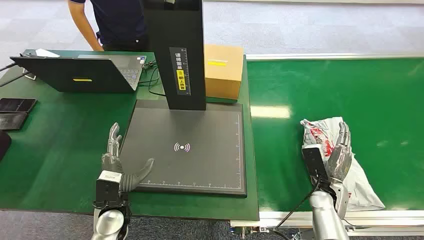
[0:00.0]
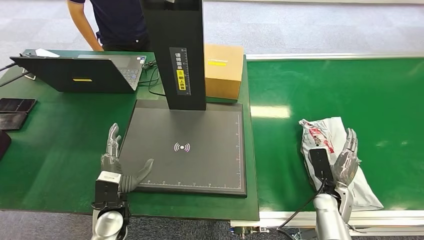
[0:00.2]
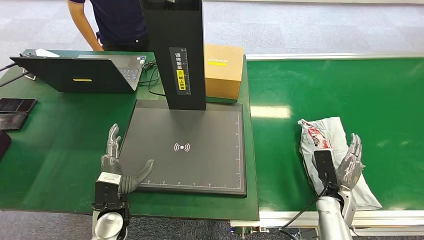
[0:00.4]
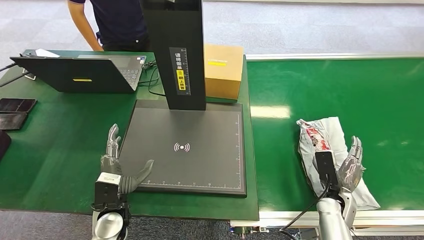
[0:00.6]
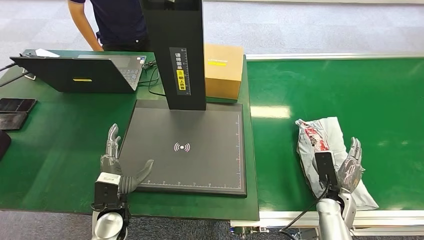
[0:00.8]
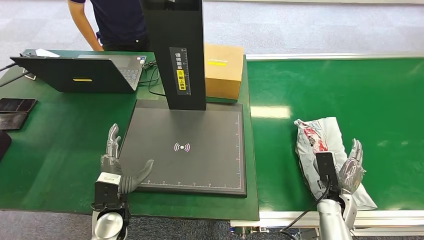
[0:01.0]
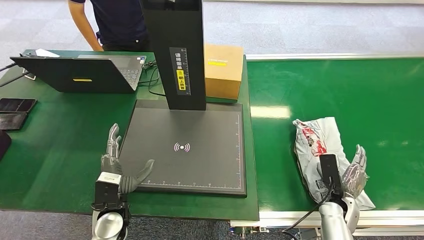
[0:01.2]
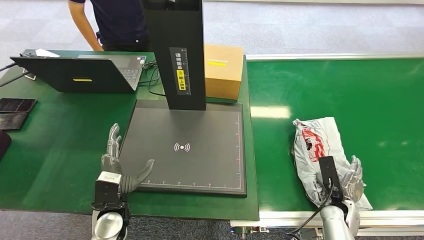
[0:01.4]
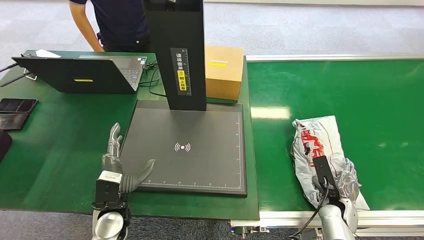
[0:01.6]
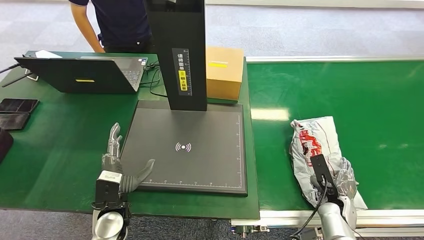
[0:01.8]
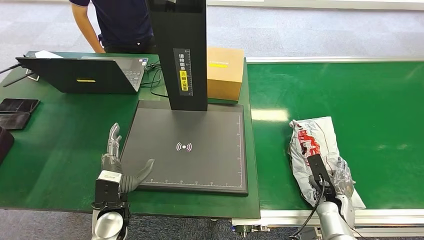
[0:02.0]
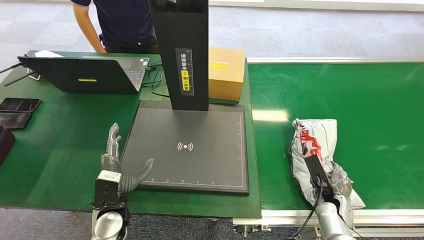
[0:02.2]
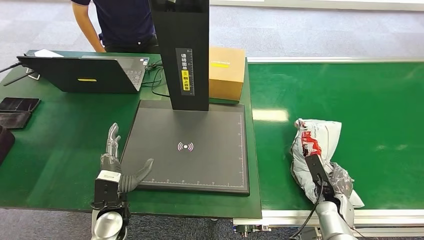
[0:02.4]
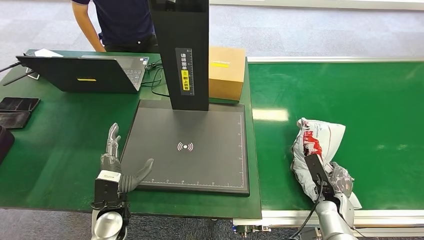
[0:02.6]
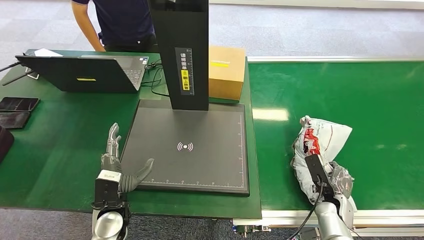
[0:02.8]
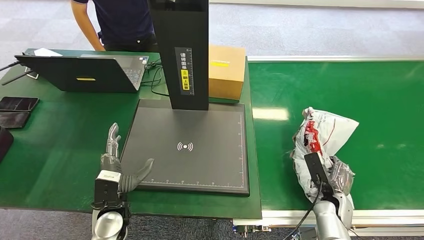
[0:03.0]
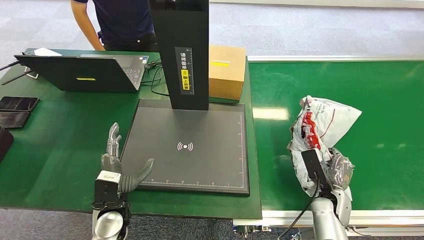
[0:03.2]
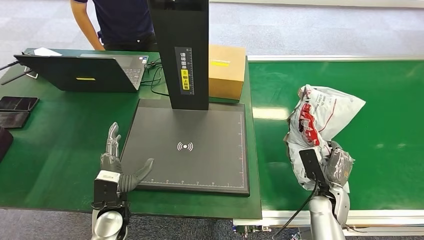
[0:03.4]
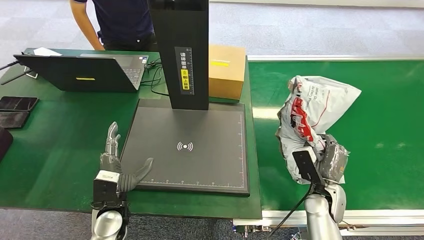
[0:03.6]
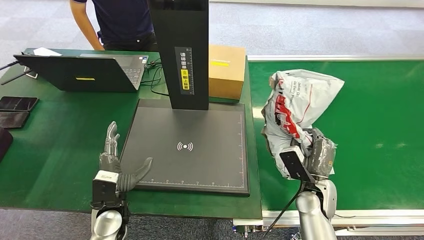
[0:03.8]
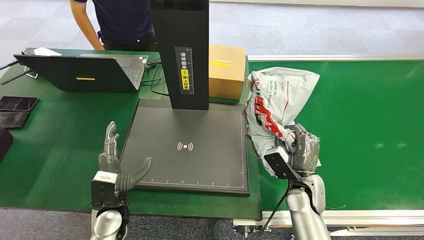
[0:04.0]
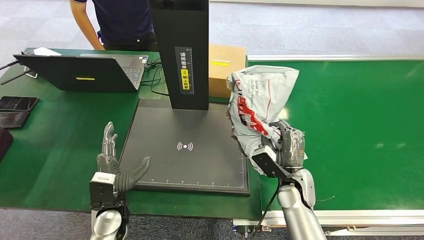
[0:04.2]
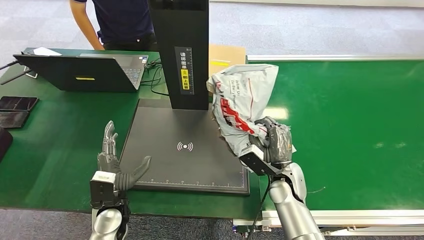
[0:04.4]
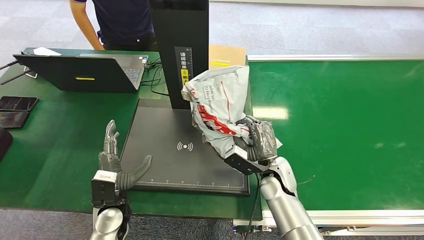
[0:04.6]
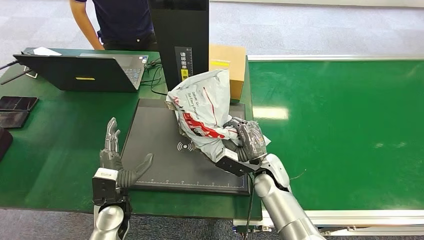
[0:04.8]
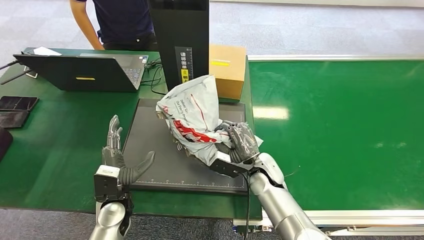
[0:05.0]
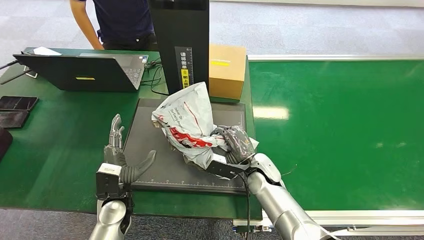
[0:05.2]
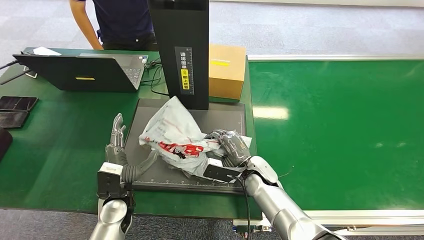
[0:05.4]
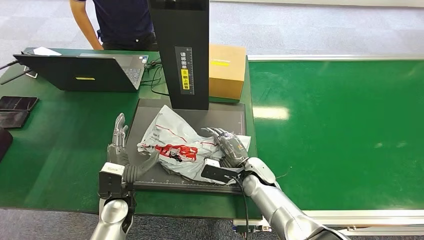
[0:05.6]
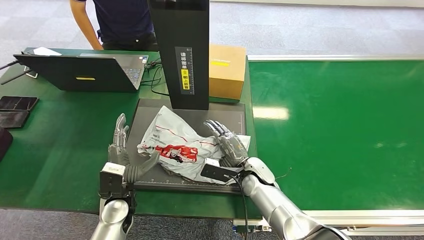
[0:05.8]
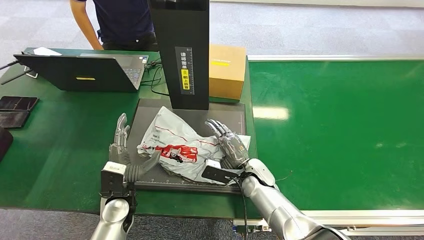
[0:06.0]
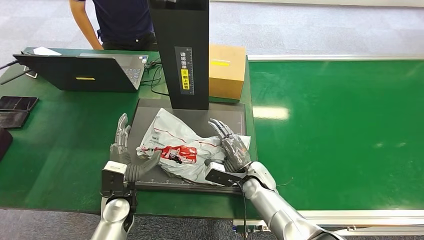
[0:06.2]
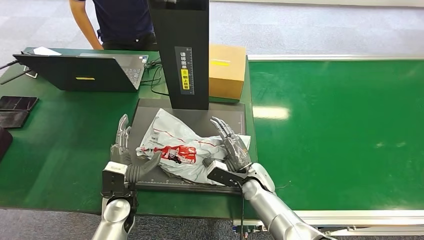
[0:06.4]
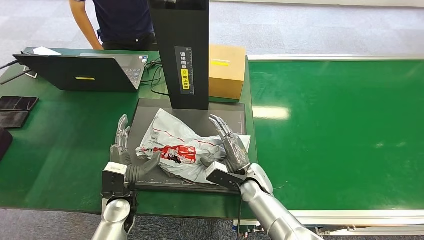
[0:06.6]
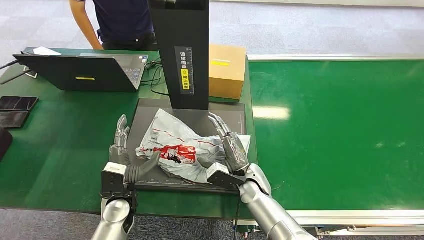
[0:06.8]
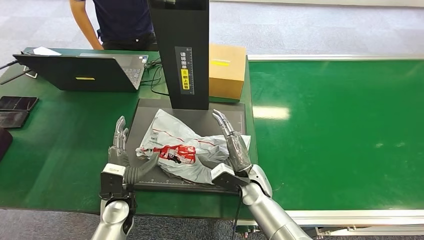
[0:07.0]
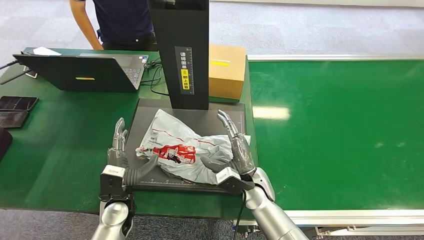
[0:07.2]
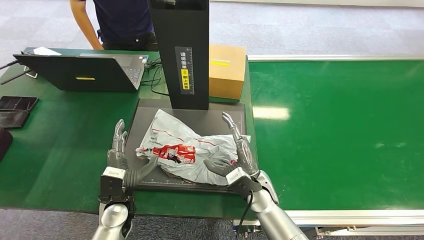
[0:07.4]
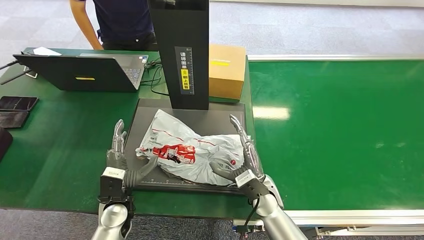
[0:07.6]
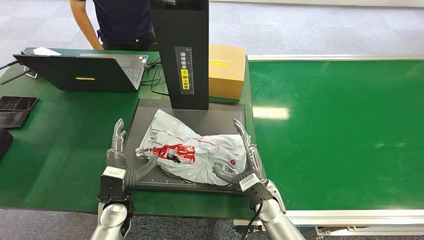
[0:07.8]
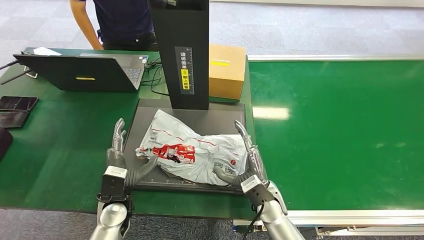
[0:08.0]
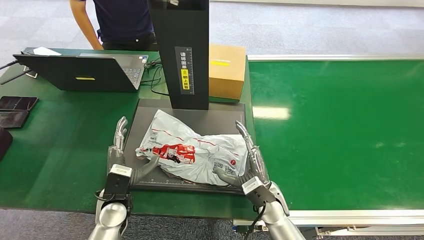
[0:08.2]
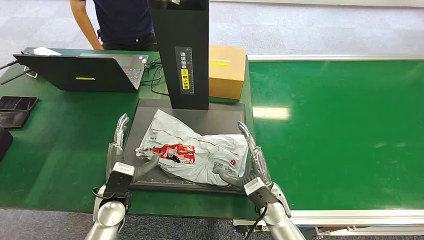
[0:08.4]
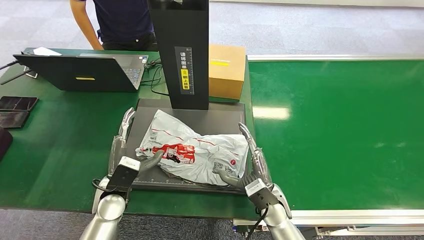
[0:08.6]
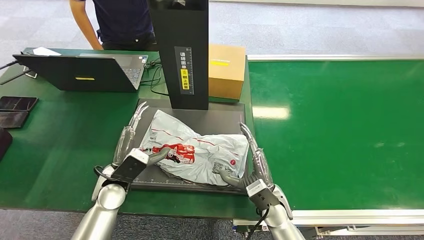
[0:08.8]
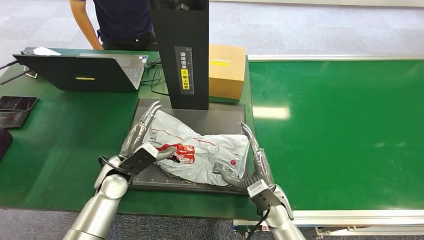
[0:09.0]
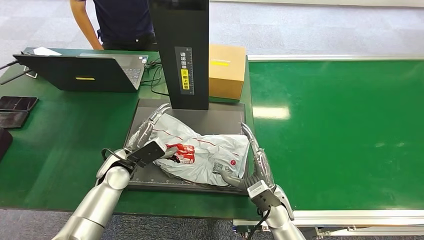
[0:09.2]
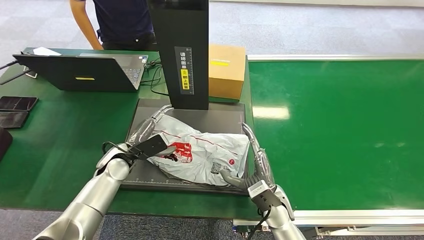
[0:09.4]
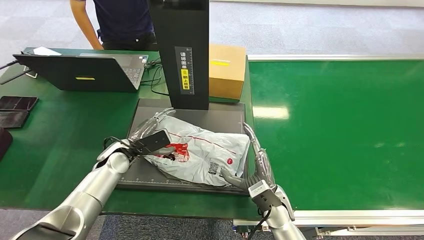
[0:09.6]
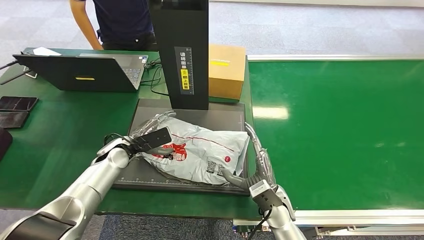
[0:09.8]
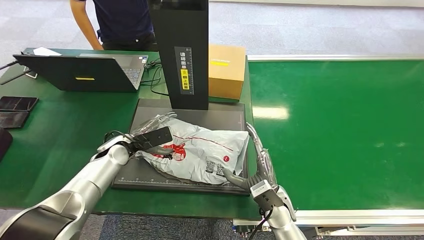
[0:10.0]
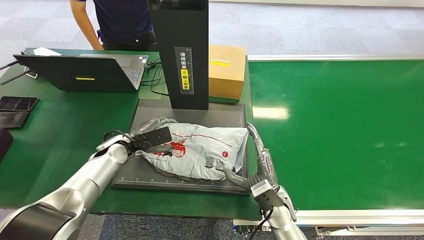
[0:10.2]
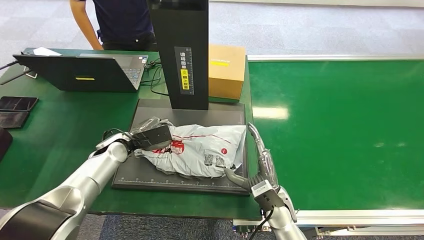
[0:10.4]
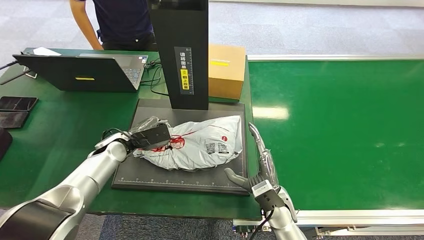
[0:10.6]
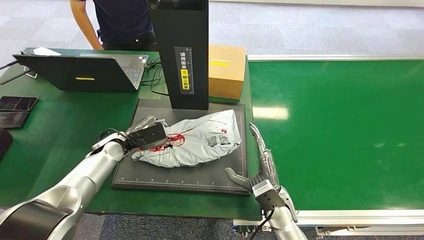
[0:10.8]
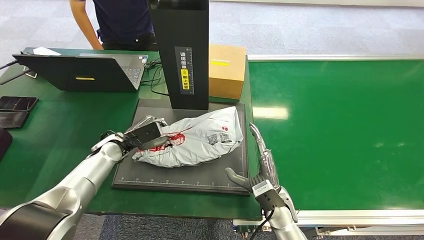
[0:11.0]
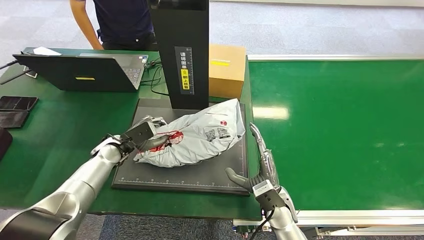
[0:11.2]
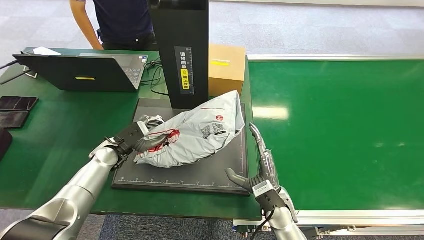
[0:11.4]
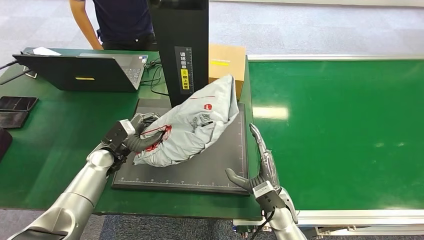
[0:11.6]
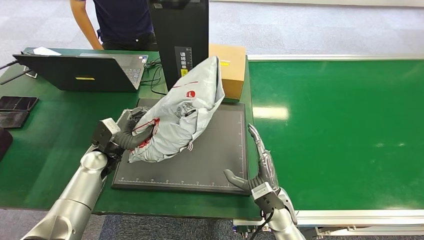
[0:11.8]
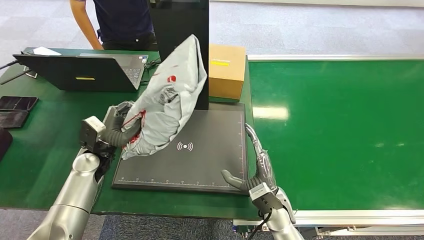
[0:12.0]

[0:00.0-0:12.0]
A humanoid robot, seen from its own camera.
Task of the whole recording: Weigh the package on the weighing device and place it in the left basket.
Step, 0:00.0 to 0:03.4: Pick up the package from the conveyor belt.
Step, 0:03.6 to 0:07.8: Place the package onto the inbound machine.
Step, 0:08.0 to 0:11.6: Pick up the package from the inbound machine.
0:01.6 to 0:03.0: There are only small adjustments of the hands.
0:04.4 to 0:06.0: The right hand travels to the left by some 10 cm.
0:06.0 to 0:07.6: The right hand goes roughly 5 cm backward.
0:07.6 to 0:09.0: The left hand moves forward, approximately 5 cm.
0:09.0 to 0:10.4: The left hand shifts about 10 cm forward.
0:10.4 to 0:12.0: The left hand shifts by approximately 5 cm.

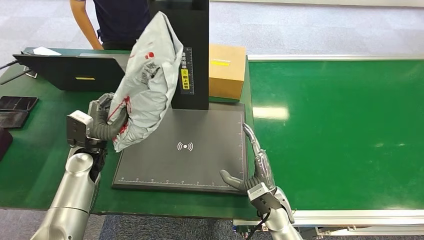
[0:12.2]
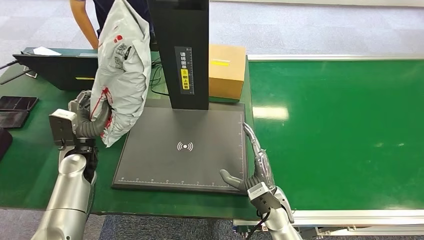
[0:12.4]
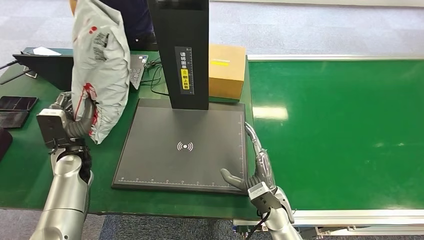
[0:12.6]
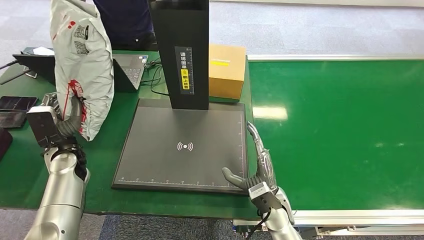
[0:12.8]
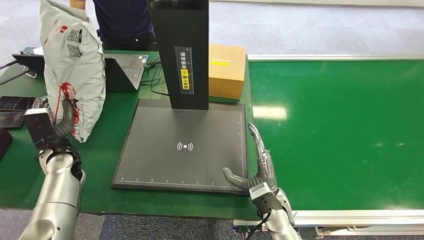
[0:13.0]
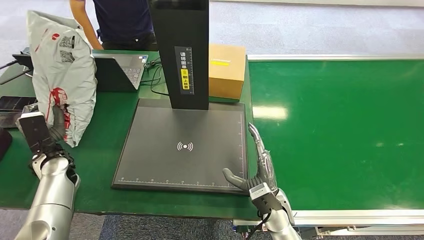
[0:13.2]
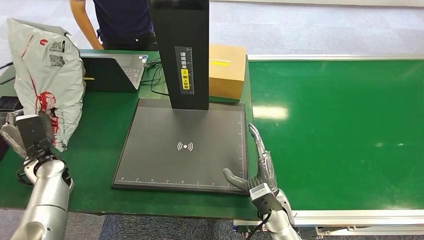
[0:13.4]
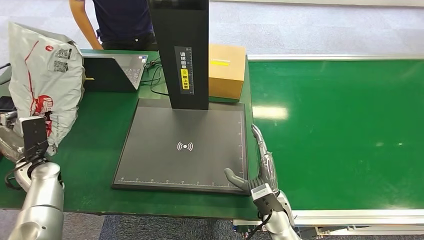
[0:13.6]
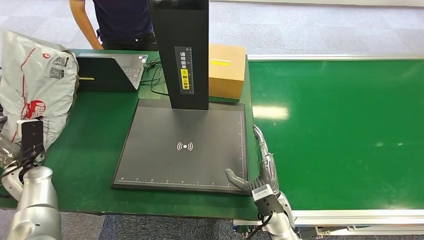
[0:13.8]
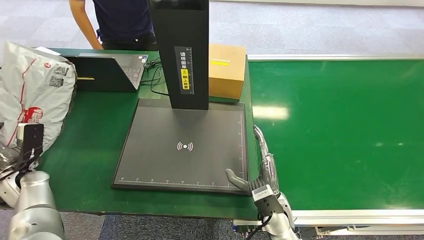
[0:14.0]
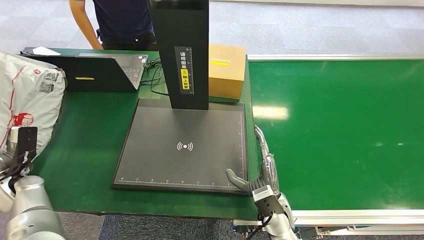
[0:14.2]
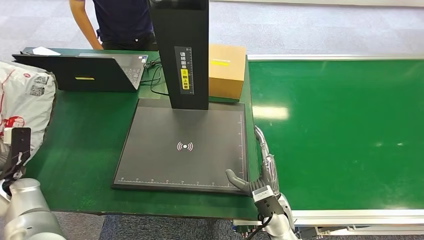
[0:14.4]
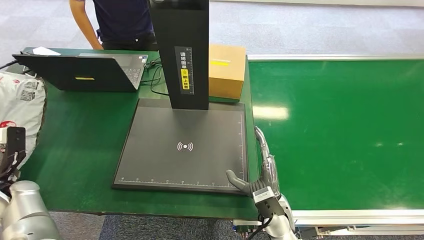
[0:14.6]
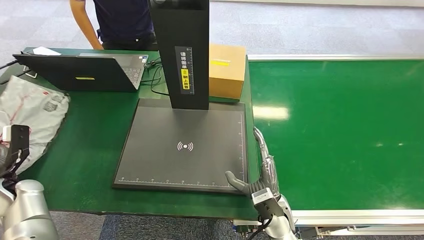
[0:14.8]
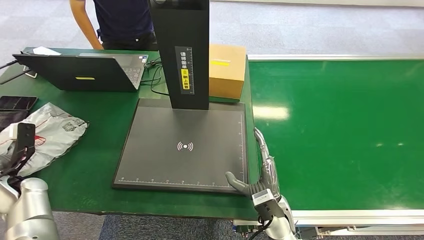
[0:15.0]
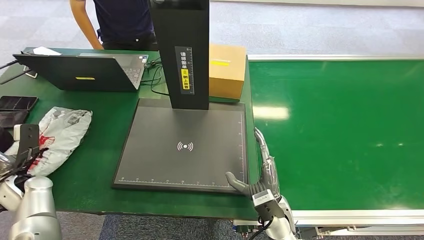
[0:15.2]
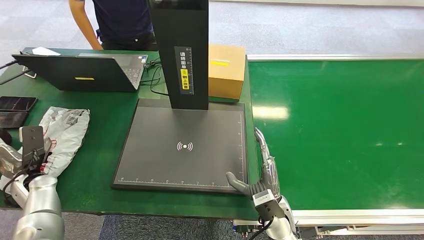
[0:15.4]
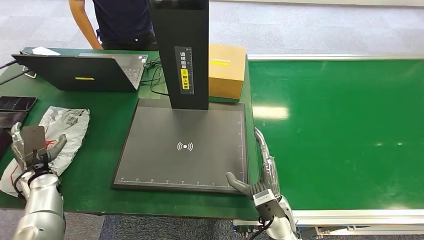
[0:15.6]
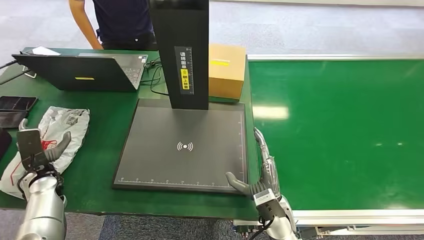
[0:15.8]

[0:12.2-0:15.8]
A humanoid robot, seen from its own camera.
Task of the whole recording: Weigh the package on the weighing device and place it in the left basket.
Step, 0:12.2 to 0:15.6: Place the package into the parcel locker.

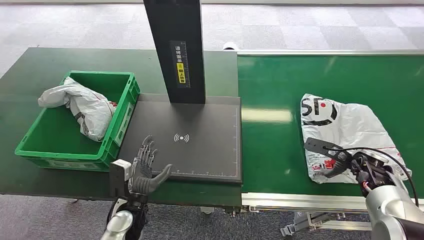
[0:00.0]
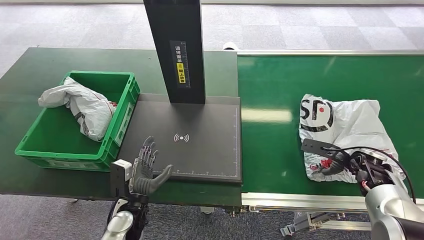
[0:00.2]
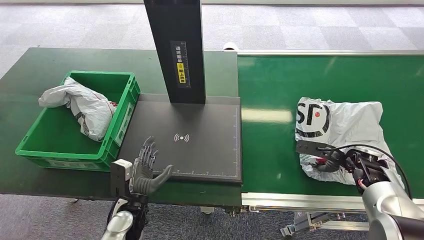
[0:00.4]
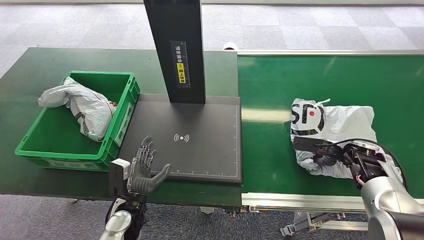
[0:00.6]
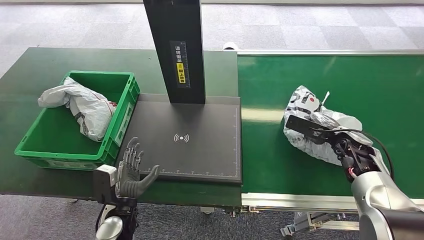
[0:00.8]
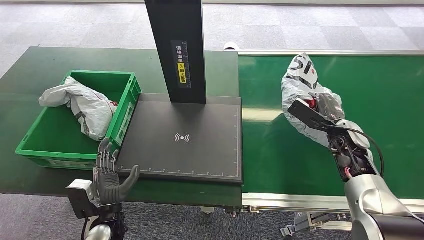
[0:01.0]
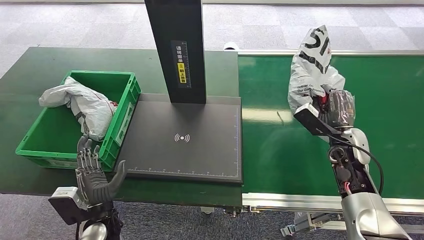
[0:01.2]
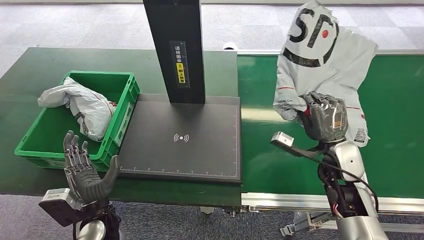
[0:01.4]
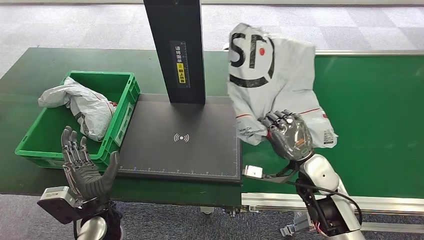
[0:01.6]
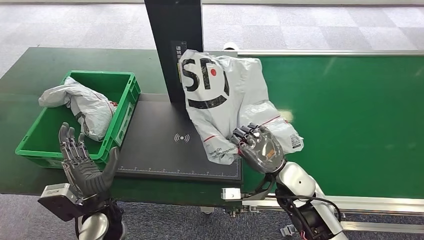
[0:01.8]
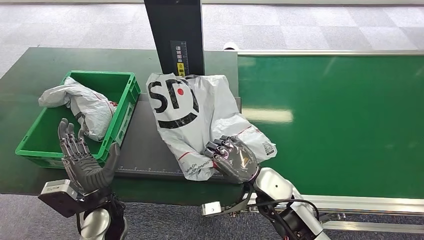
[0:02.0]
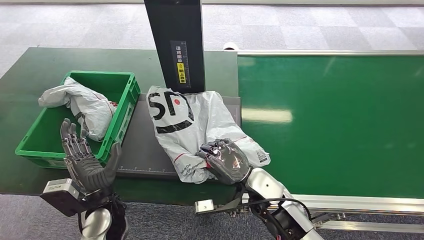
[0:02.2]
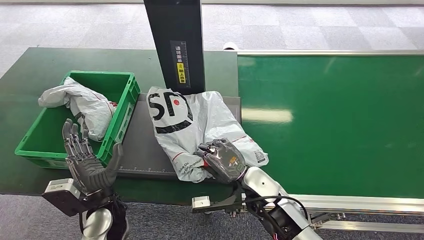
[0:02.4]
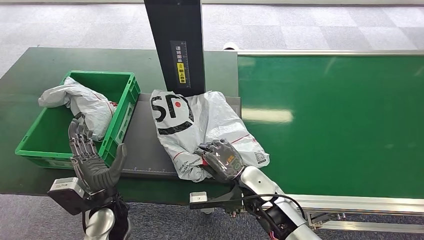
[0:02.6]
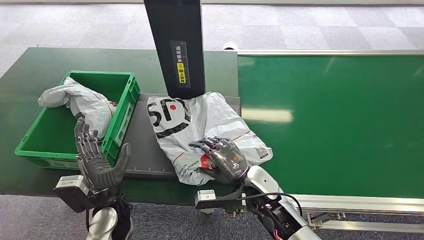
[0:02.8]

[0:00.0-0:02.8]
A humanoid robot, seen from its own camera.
Task of the whole recording: Weigh the package on the weighing device and place it in the left basket.
Step, 0:00.0 to 0:01.6: Pick up the package from the conveyor belt.
